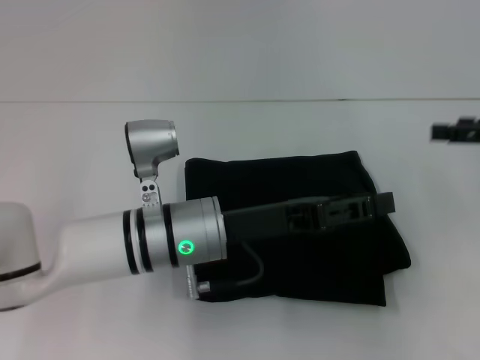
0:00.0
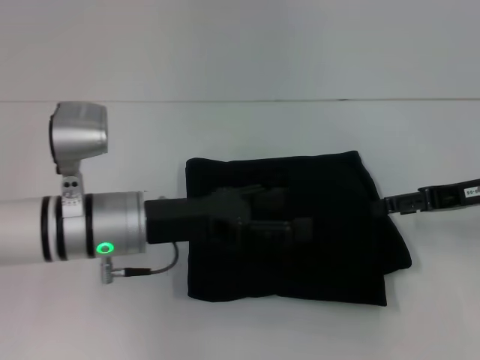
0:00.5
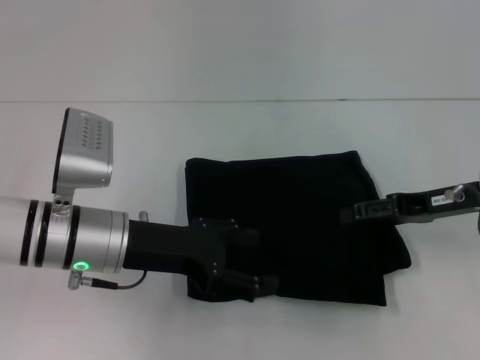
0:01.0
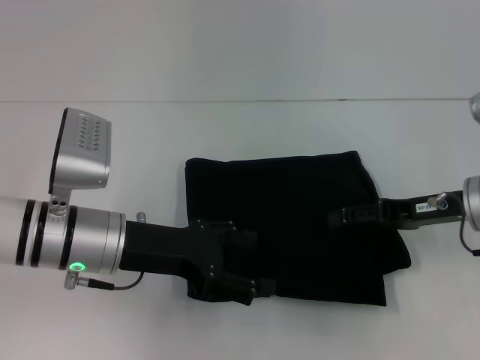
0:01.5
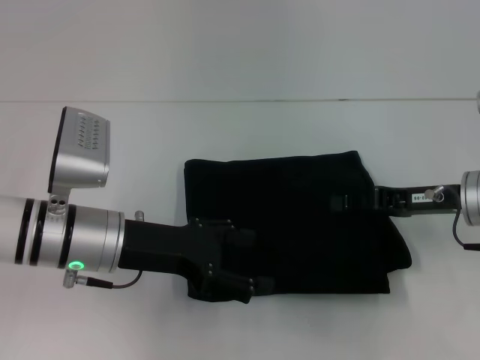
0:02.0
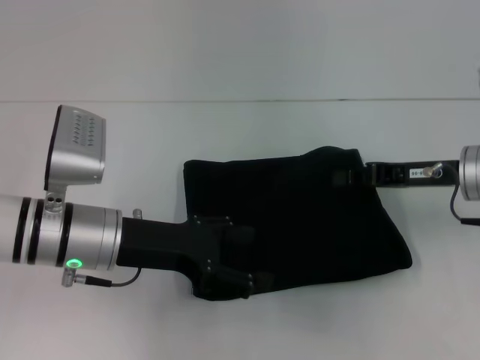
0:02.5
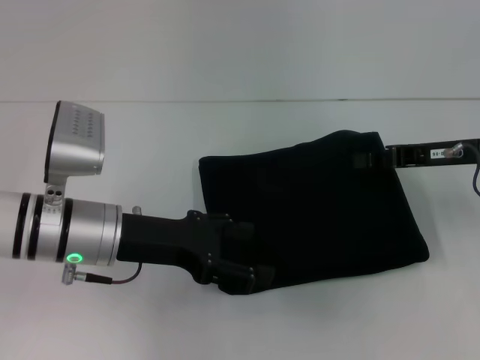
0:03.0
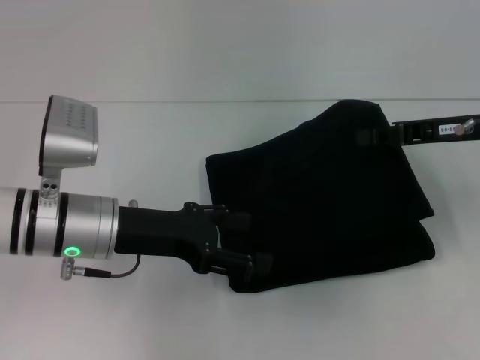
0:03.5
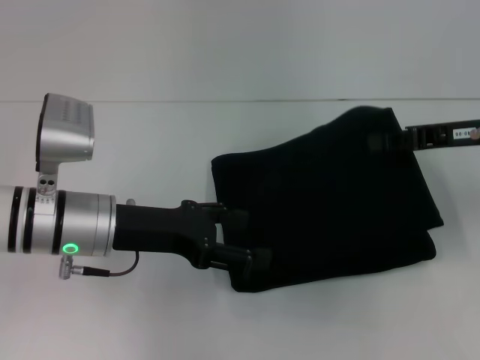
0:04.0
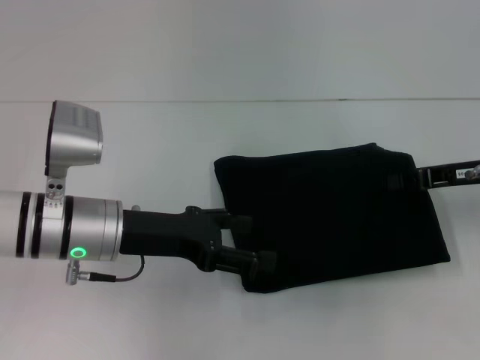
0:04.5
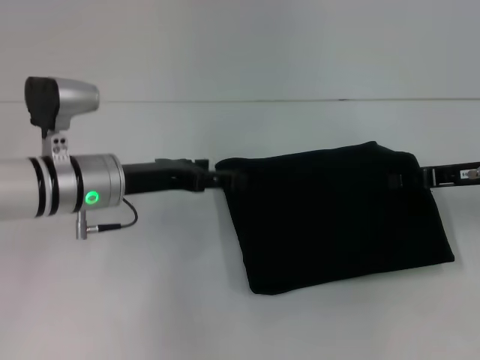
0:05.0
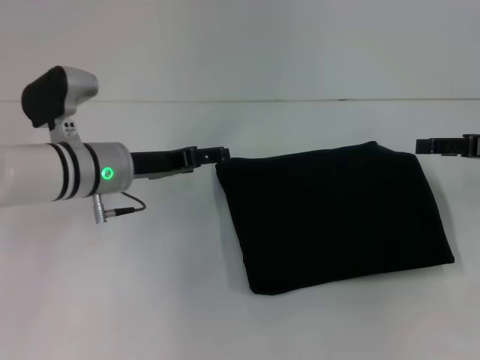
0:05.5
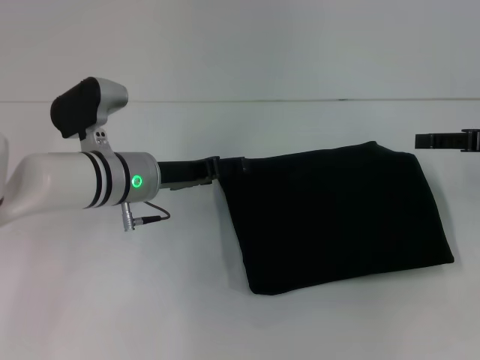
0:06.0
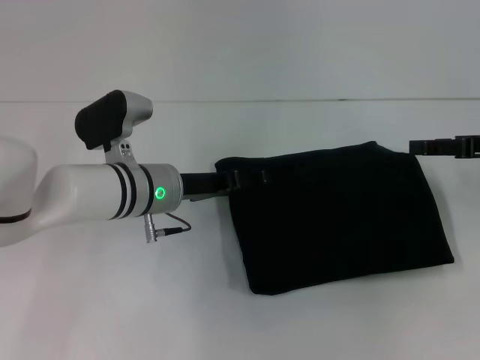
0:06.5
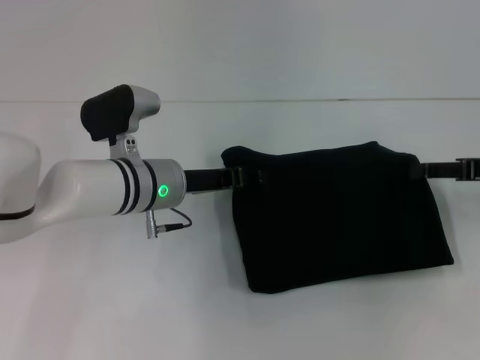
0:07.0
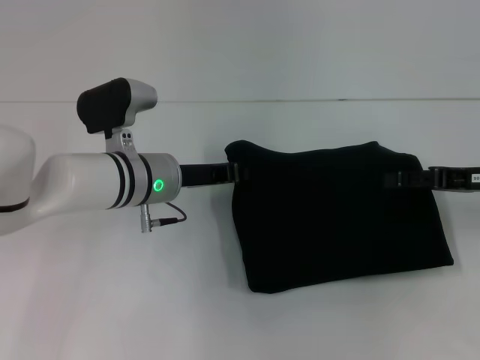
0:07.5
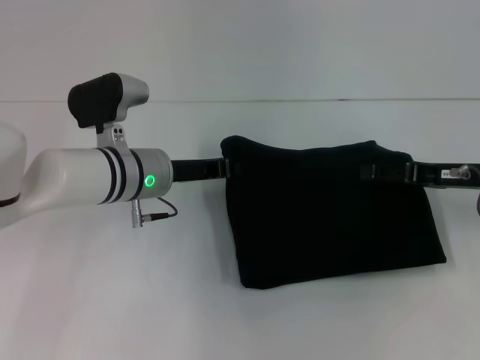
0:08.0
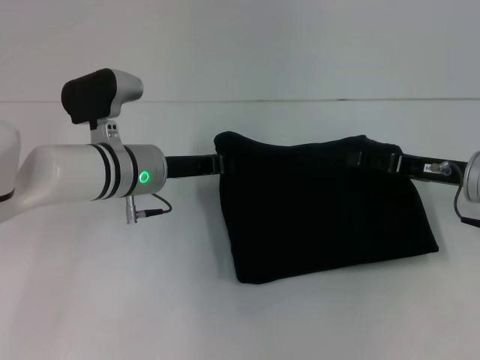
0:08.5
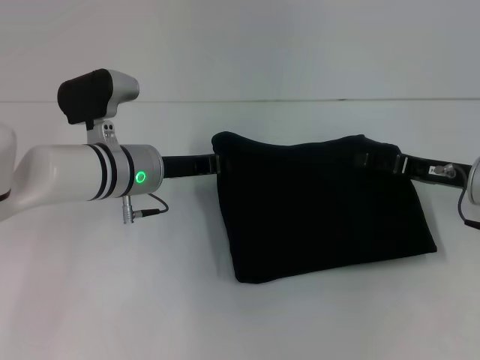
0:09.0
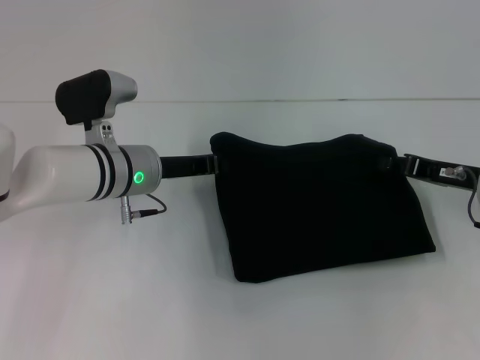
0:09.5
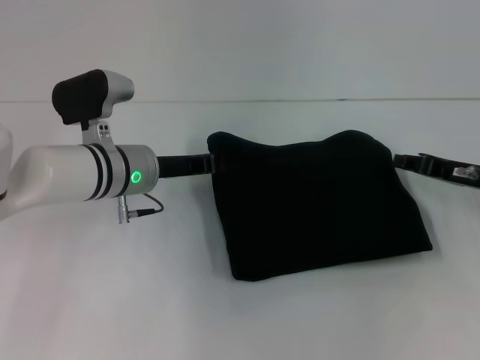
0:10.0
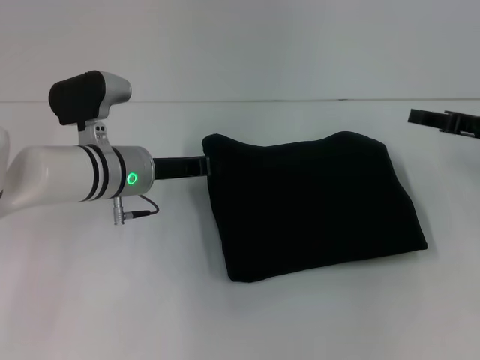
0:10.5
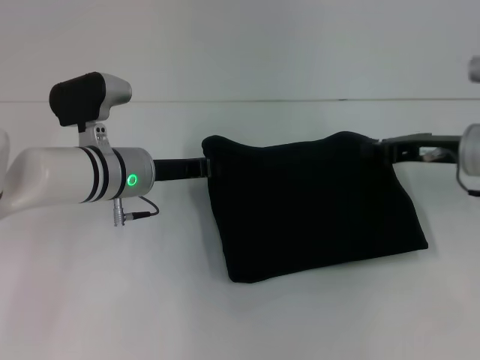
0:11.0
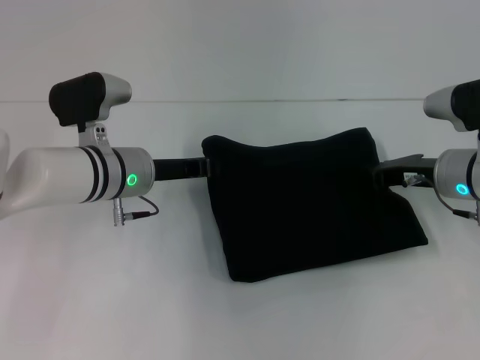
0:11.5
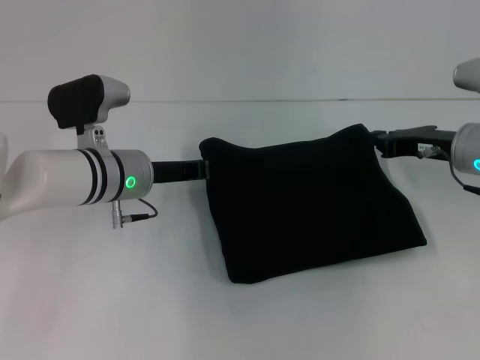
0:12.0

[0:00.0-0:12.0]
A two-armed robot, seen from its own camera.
0:00.0 to 0:02.0: The left gripper travels to the left by roughly 10 cm, and opens its fingers. Meanwhile the right gripper goes about 10 cm to the left and downward.
0:02.0 to 0:04.0: The right gripper shifts approximately 5 cm upward, and closes up.
0:04.0 to 0:06.0: The left gripper goes roughly 5 cm forward, while the right gripper moves to the right, roughly 5 cm, and opens its fingers.
0:06.0 to 0:08.0: The left gripper closes its fingers. Meanwhile the right gripper heads to the left, covering about 5 cm.
0:08.0 to 0:10.0: The right gripper closes its fingers.
0:10.0 to 0:12.0: The right gripper changes place by about 5 cm, and opens and closes again.

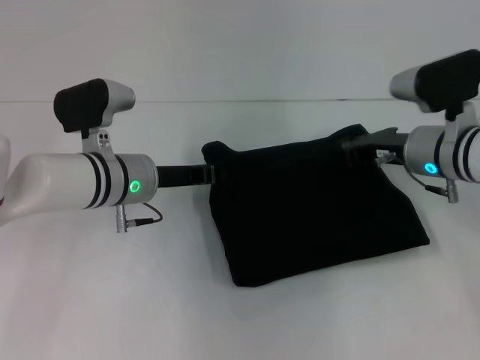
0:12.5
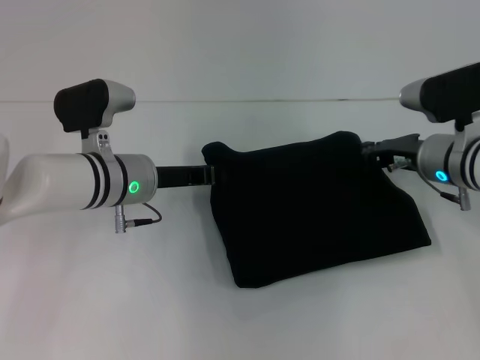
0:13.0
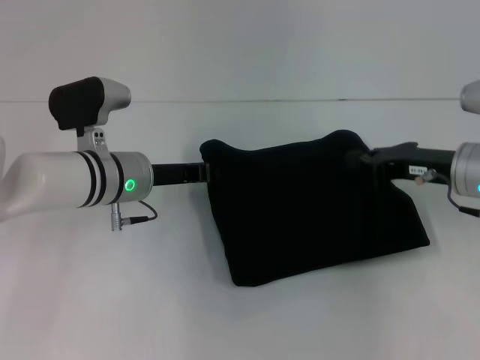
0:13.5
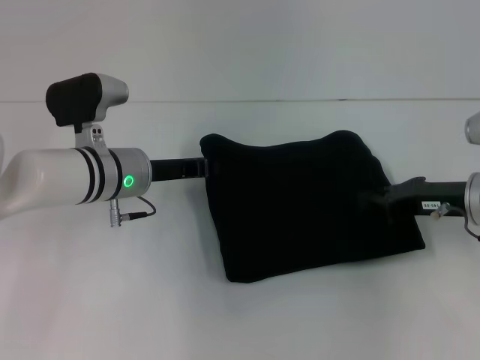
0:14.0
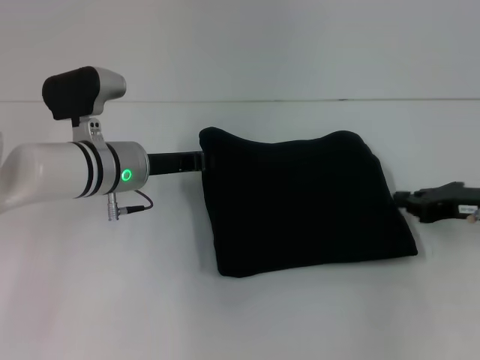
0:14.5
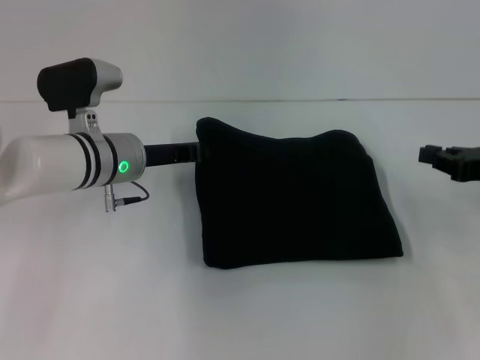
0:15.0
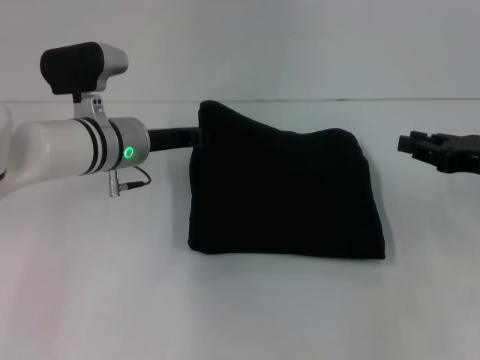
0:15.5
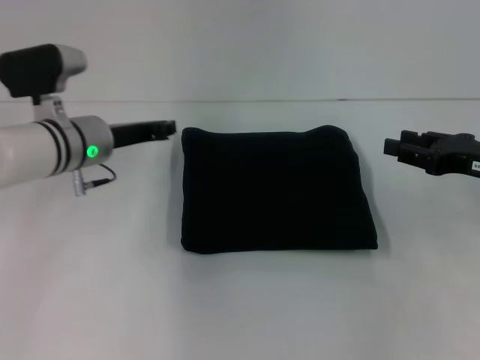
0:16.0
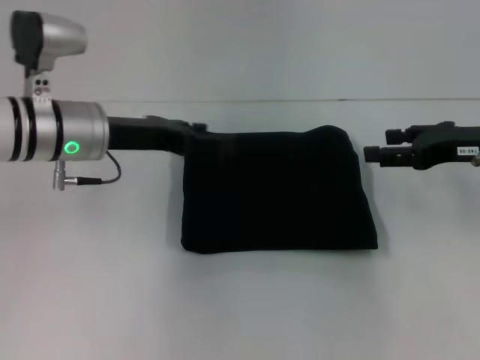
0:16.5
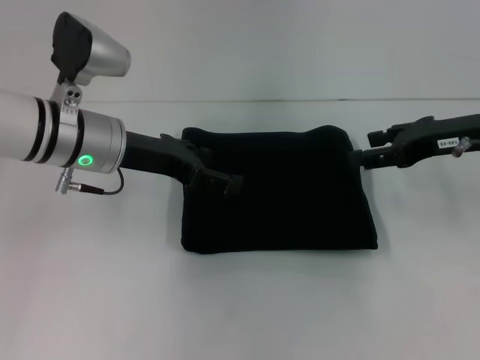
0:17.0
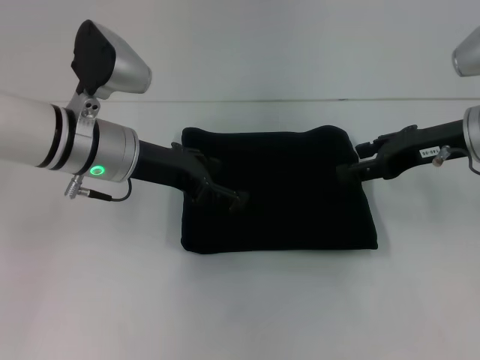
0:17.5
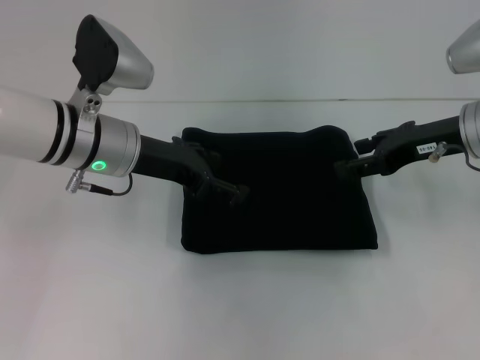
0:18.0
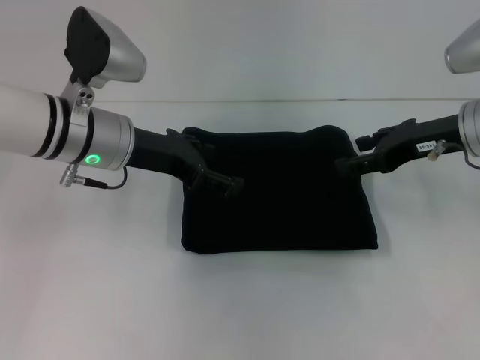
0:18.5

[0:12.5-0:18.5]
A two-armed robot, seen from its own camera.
0:12.5 to 0:14.5: The right gripper heads to the right and backward, covering about 10 cm.
0:14.5 to 0:16.5: Both grippers move upward, about 5 cm. The left gripper opens. Meanwhile the right gripper opens.
0:16.5 to 0:18.5: The left gripper opens; the right gripper shifts by about 5 cm.

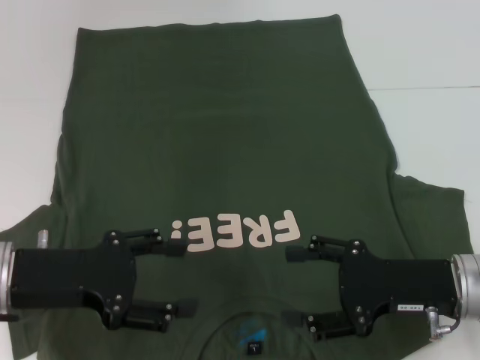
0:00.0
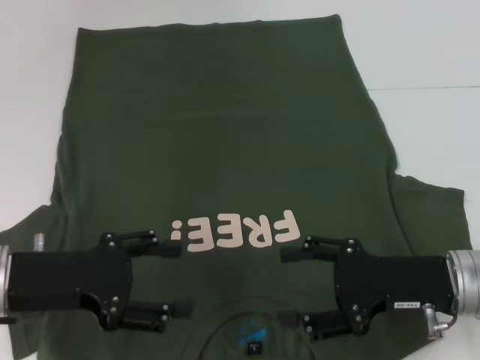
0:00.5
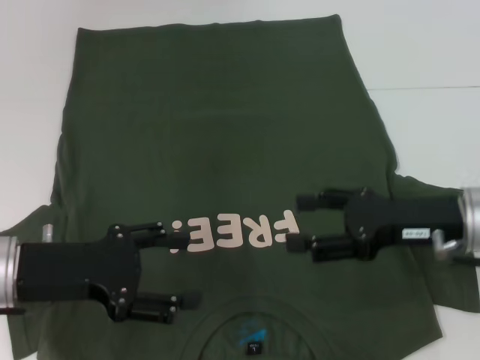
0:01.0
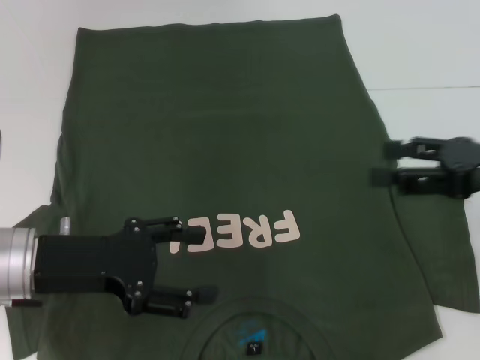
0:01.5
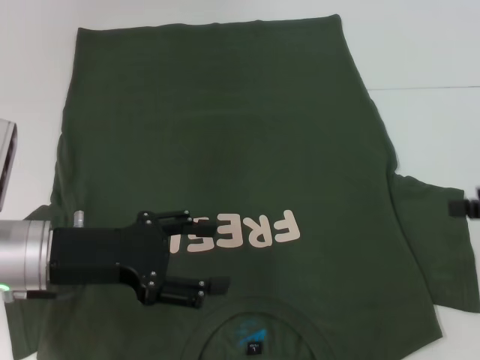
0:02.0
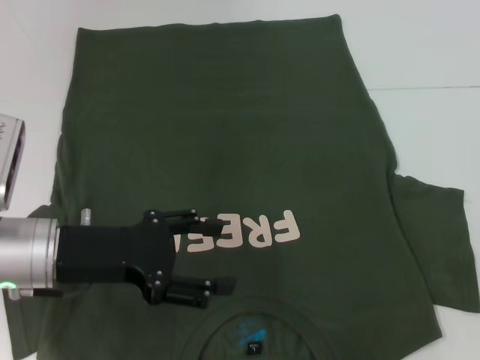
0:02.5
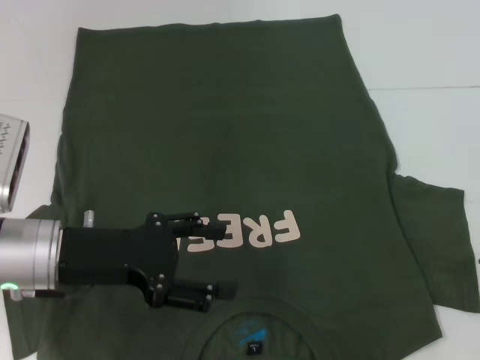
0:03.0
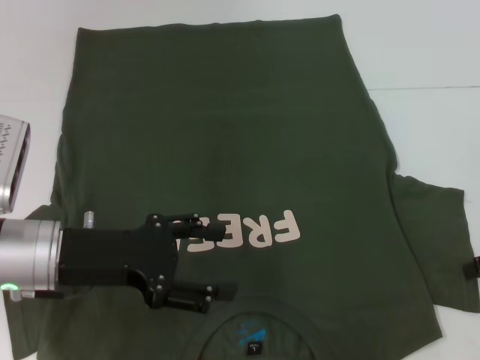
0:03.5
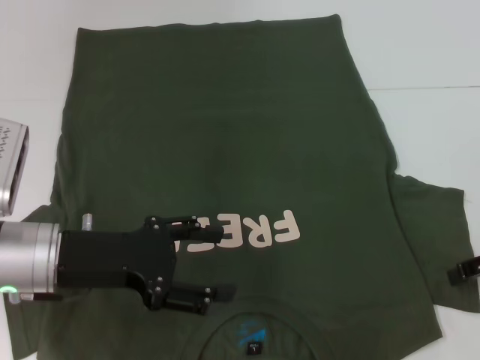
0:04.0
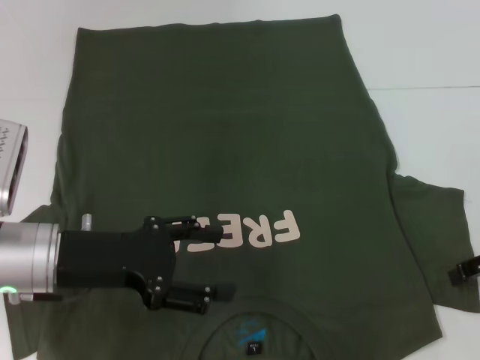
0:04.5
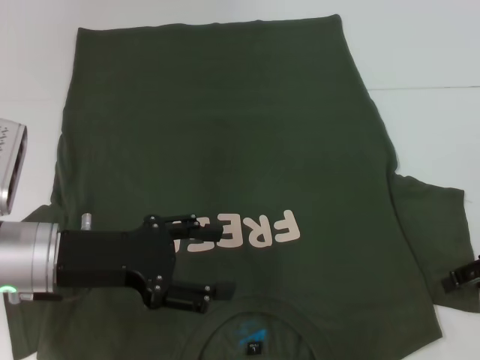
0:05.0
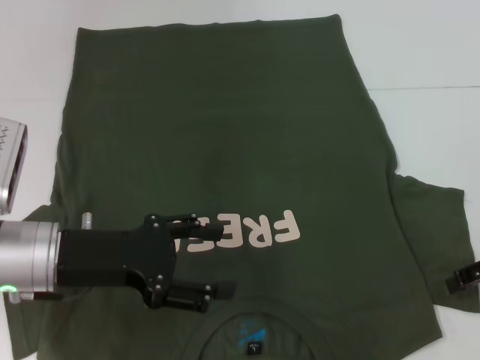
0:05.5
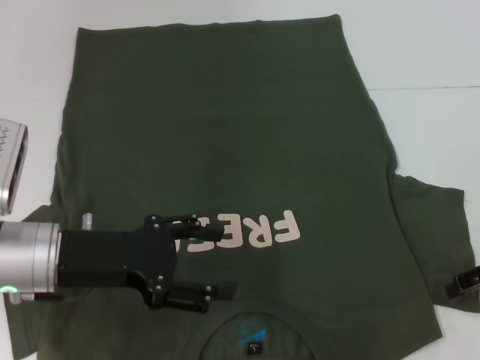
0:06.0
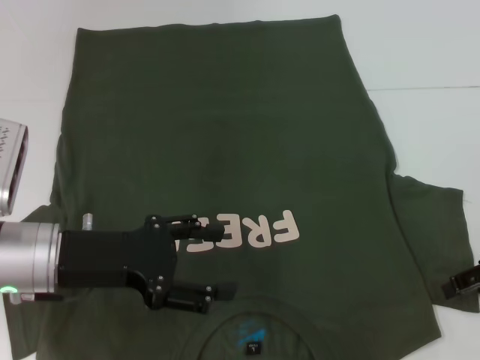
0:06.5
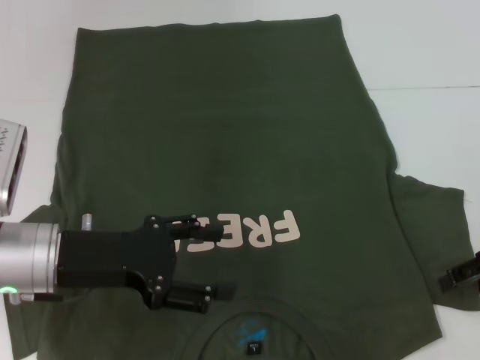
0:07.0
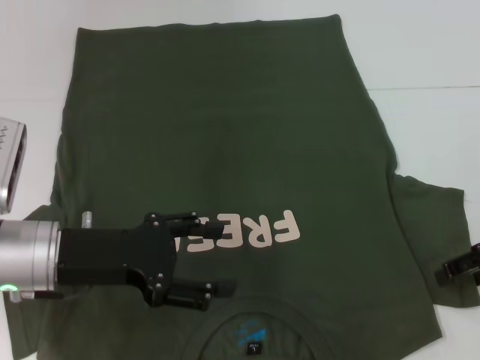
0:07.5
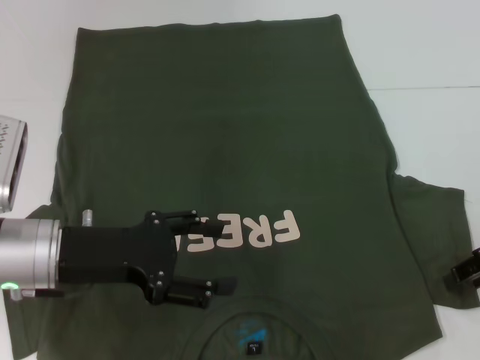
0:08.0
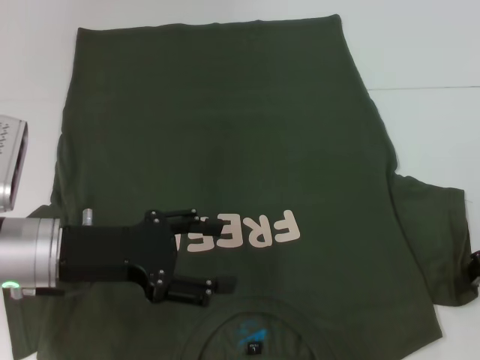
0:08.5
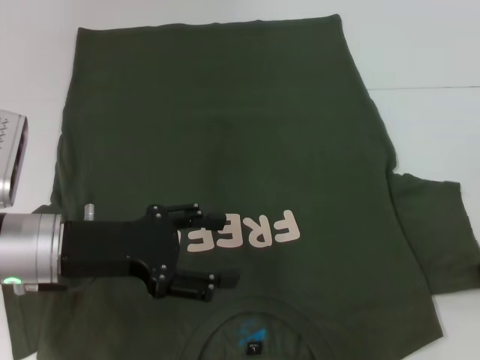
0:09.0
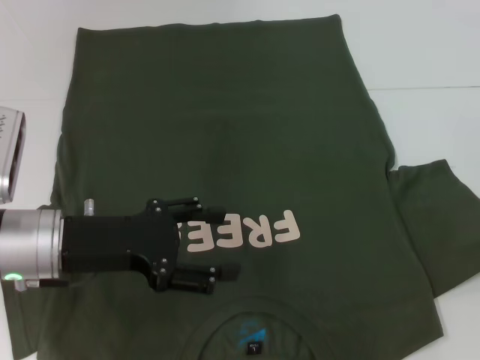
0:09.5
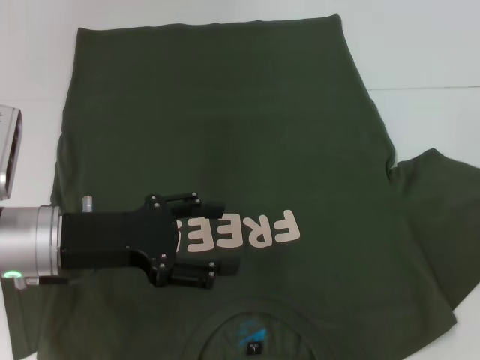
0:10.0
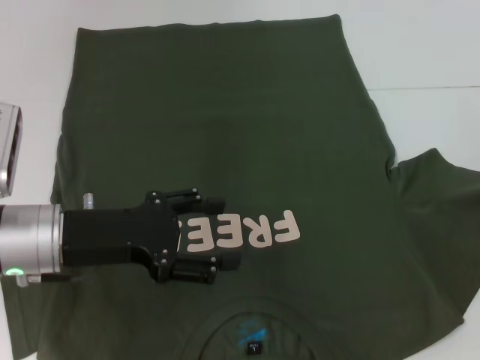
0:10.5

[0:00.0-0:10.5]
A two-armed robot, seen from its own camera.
0:00.0 to 0:02.0: The right gripper shifts approximately 15 cm to the right and upward.
0:02.0 to 0:04.0: The right gripper changes place by some 5 cm.
0:04.0 to 0:06.5: The grippers make only small movements.
0:06.5 to 0:08.5: The right gripper closes its fingers.
0:08.5 to 0:10.5: The right gripper moves roughly 5 cm.
